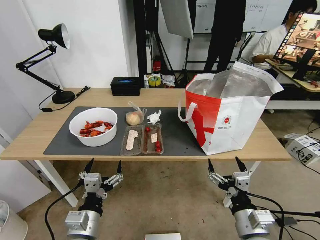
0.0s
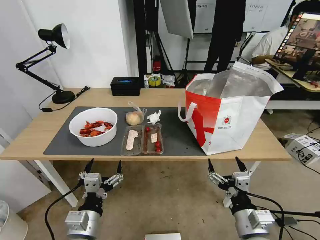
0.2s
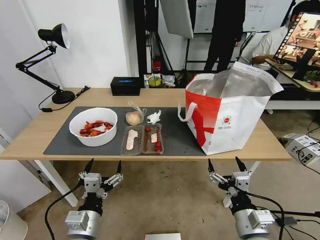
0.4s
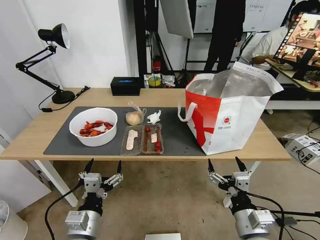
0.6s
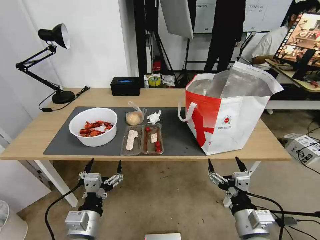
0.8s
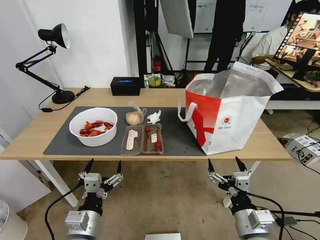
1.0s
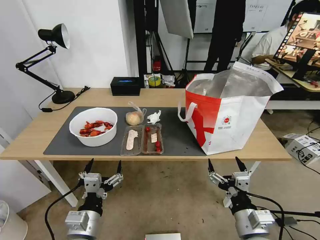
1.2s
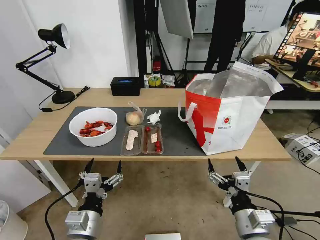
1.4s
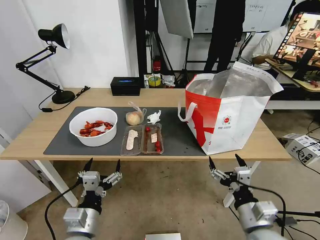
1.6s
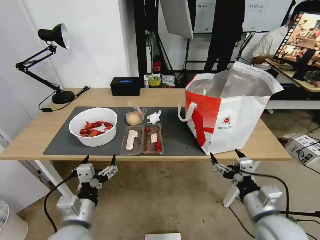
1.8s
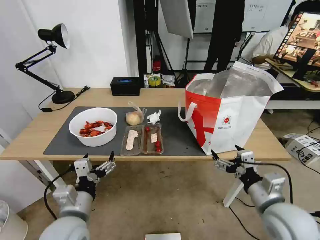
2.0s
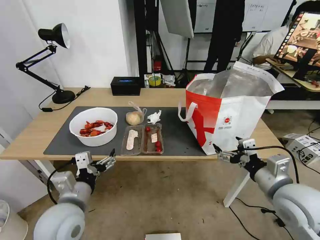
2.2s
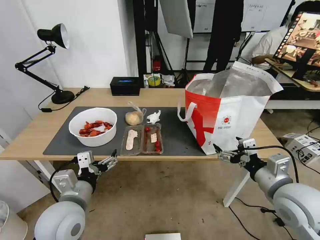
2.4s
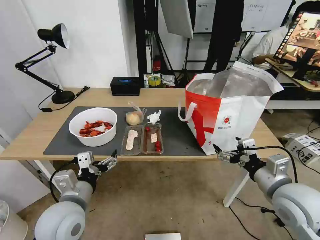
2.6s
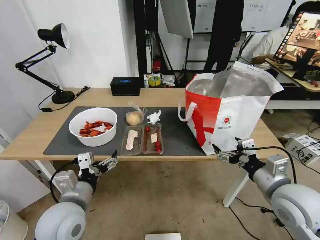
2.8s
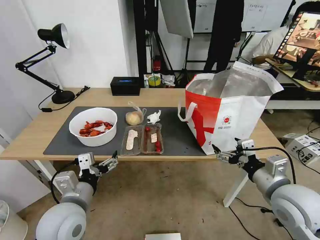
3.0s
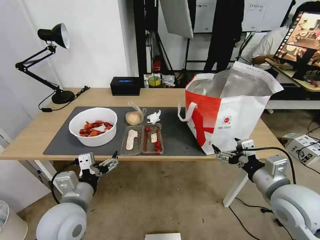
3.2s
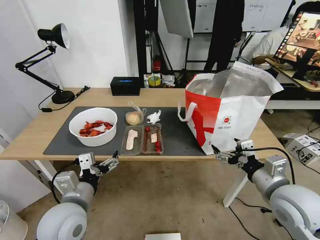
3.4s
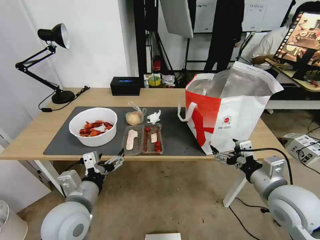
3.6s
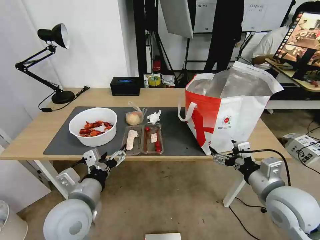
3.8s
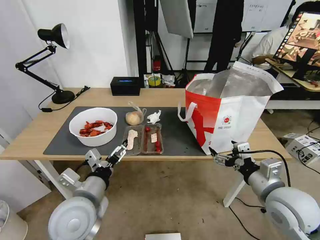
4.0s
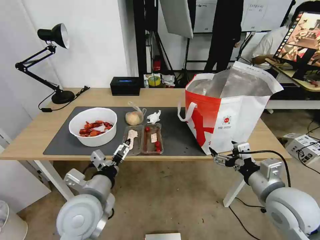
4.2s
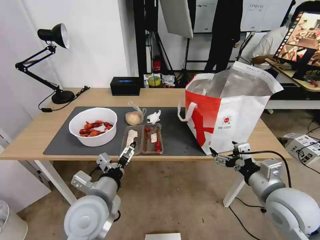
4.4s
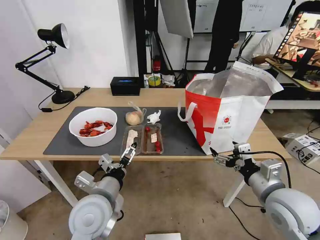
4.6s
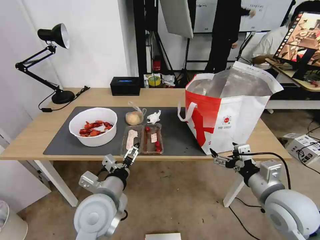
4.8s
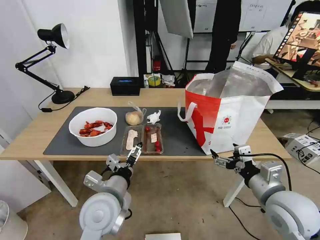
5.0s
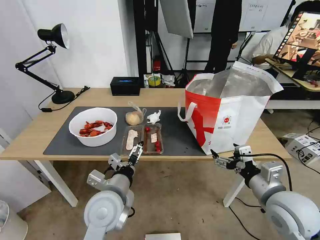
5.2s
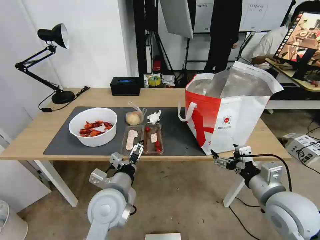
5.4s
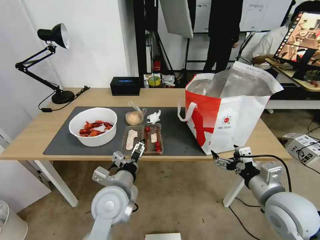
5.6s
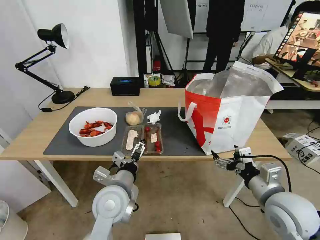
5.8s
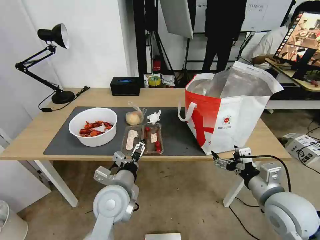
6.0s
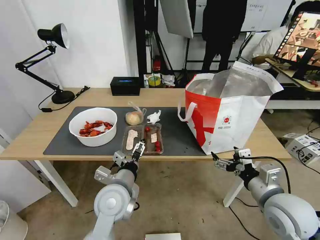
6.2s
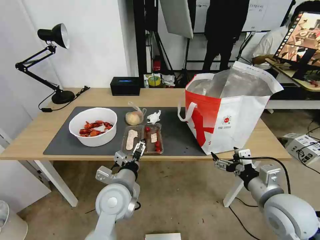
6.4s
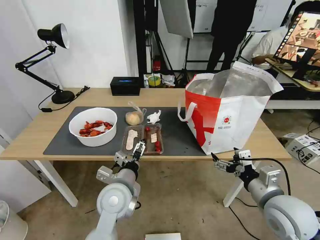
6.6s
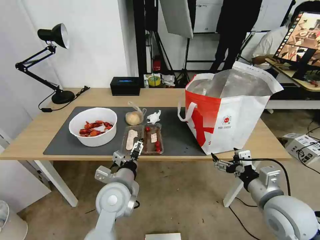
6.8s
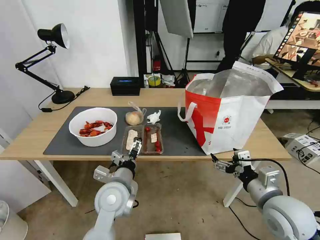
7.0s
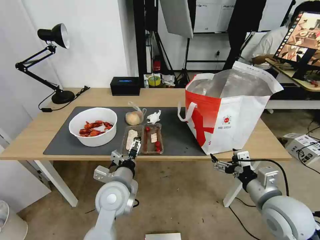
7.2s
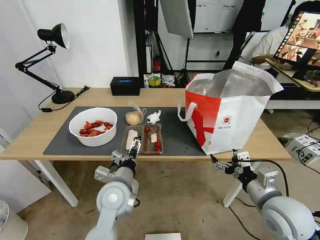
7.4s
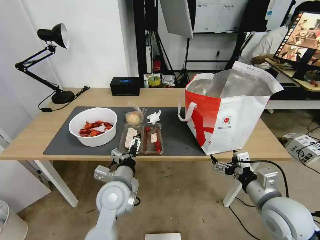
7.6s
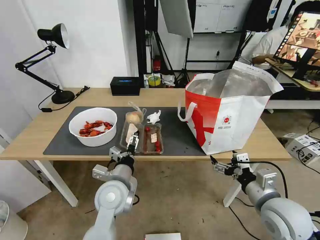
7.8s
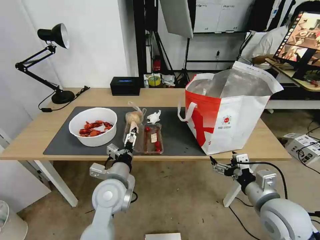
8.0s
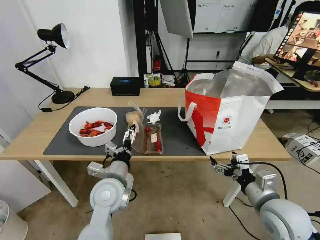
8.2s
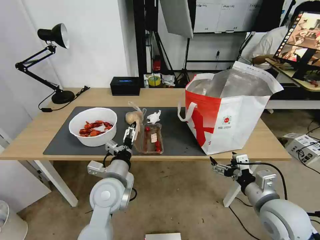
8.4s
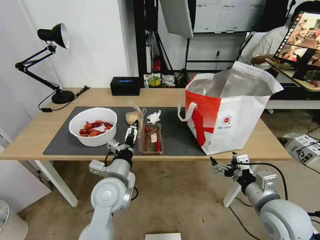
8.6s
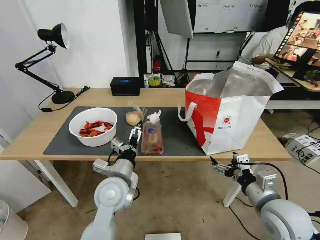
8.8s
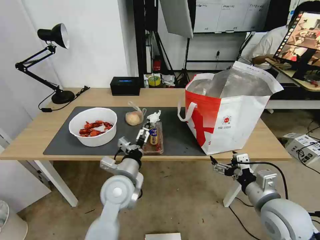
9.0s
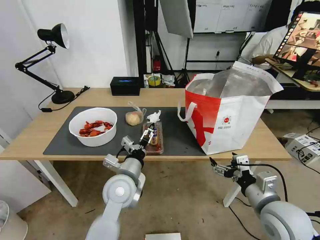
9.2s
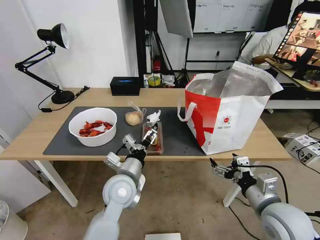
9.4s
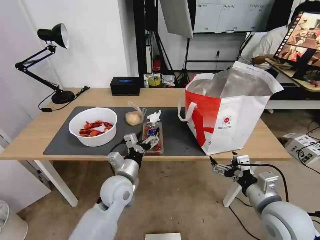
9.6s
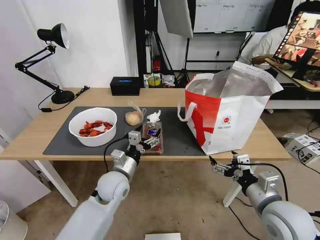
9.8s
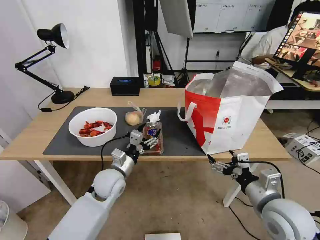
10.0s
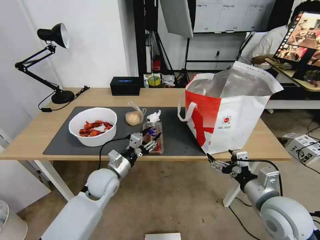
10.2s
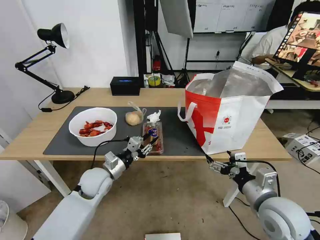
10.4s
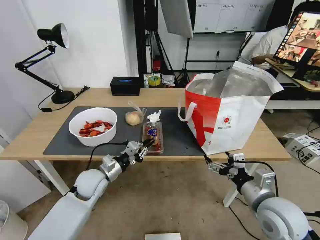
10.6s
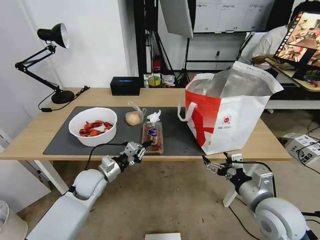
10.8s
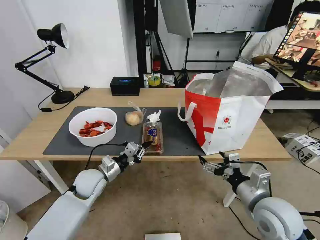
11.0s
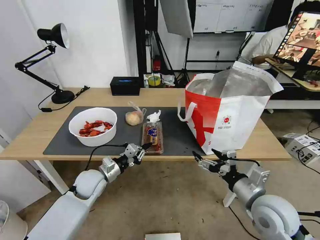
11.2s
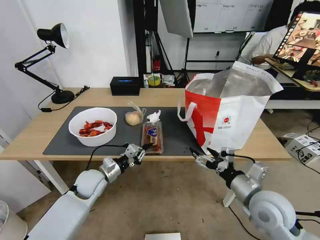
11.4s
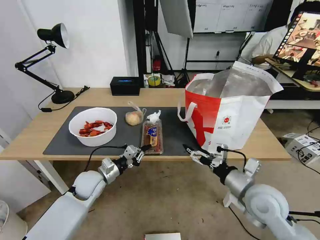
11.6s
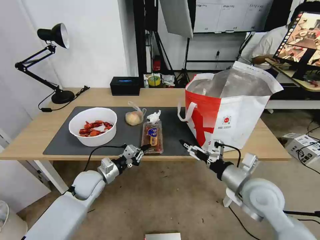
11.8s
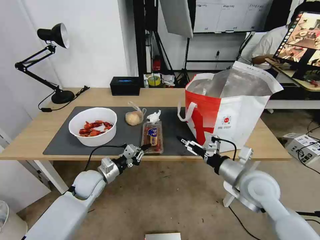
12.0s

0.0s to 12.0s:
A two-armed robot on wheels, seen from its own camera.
Task of the whole recording: Pick up the trash from the table and place it into the takeout bag.
1.6s to 3.0s: The right gripper shifts roughly 10 cm upward, forward and to the right; the left gripper is displaced upward and forward by roughly 10 cm.
3.0s to 4.4s: The left gripper moves to the right, some 5 cm.
4.4s to 6.0s: The left gripper ends up roughly 5 cm from where it was.
6.0s to 9.0s: There are only small adjustments of the grippers.
9.0s to 10.4s: The left gripper travels to the left, forward and downward by roughly 15 cm, and closes its fingers.
10.4s to 12.0s: The right gripper shifts some 10 cm forward.

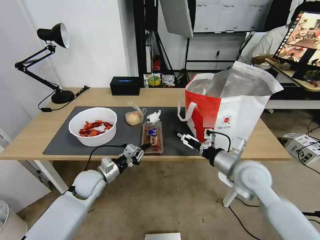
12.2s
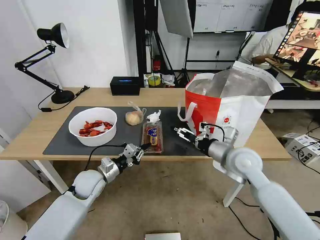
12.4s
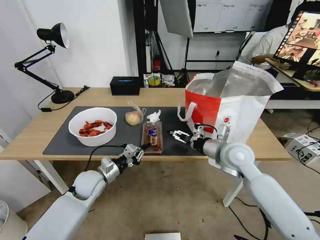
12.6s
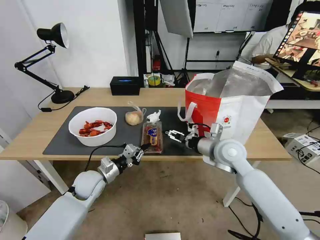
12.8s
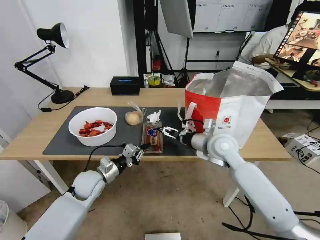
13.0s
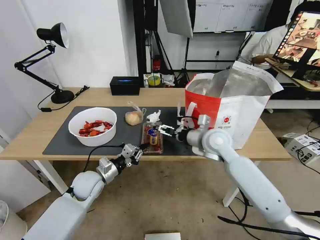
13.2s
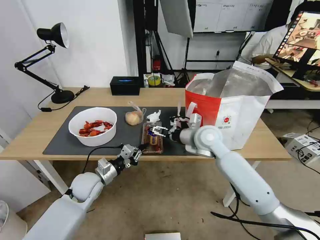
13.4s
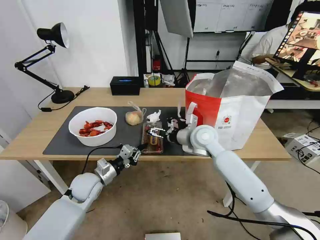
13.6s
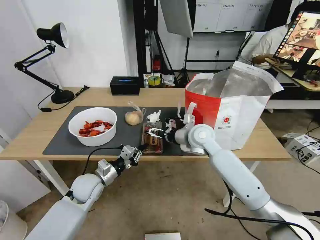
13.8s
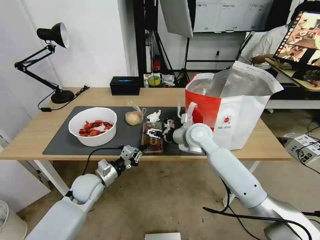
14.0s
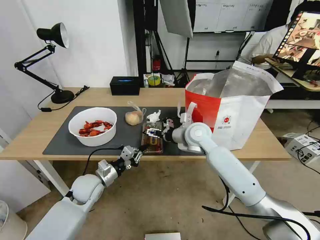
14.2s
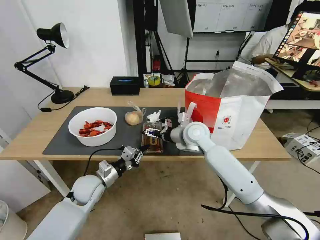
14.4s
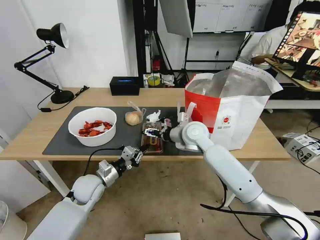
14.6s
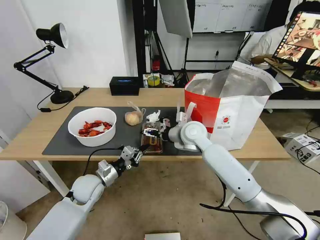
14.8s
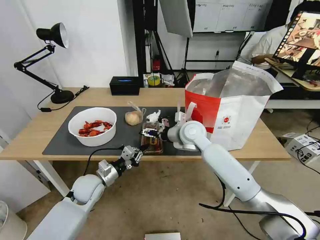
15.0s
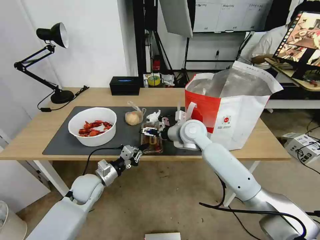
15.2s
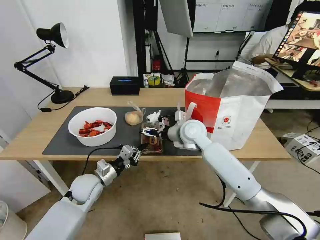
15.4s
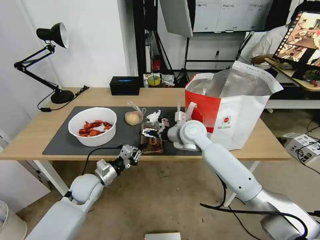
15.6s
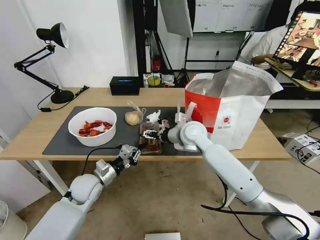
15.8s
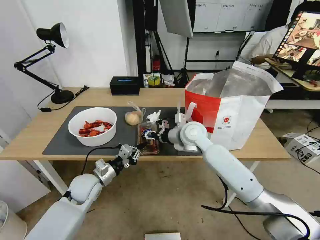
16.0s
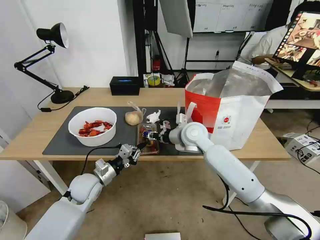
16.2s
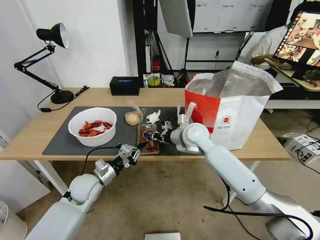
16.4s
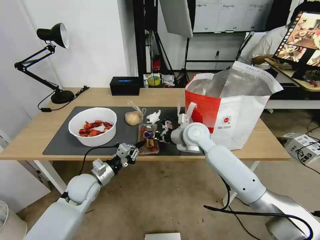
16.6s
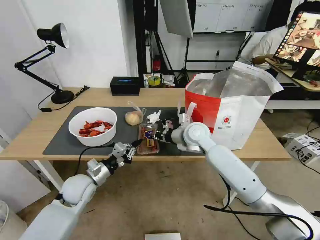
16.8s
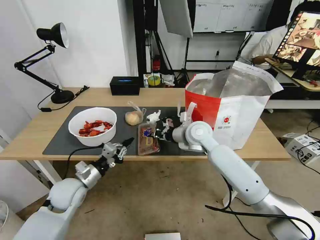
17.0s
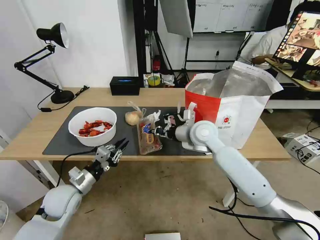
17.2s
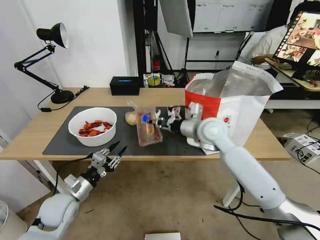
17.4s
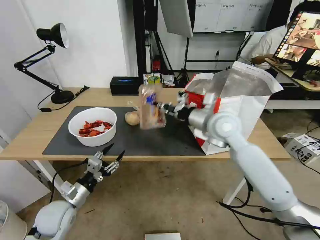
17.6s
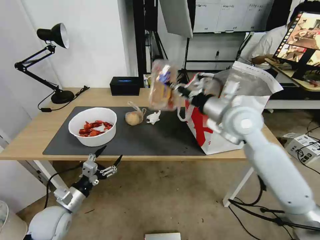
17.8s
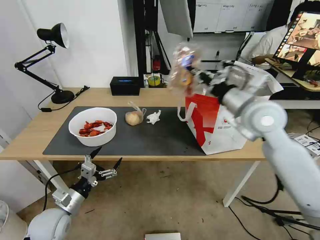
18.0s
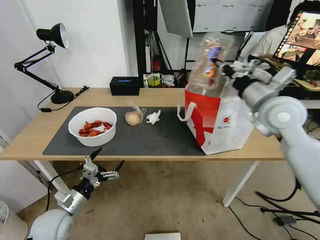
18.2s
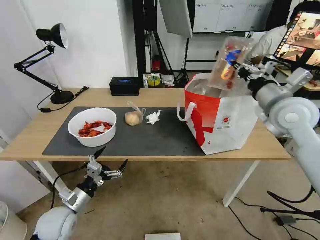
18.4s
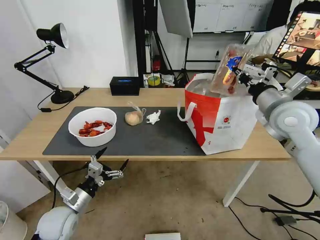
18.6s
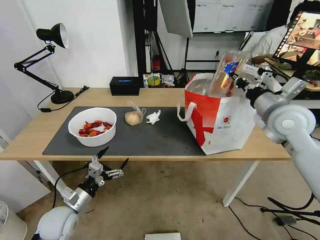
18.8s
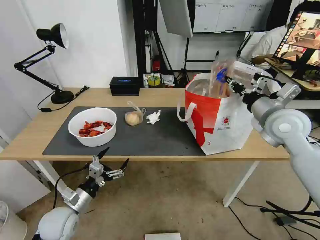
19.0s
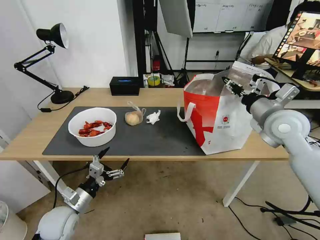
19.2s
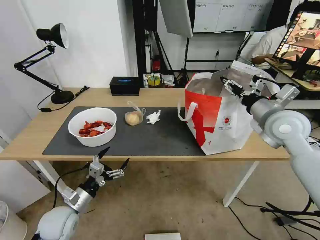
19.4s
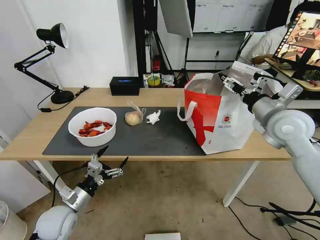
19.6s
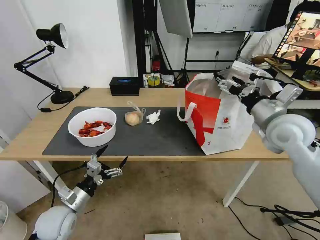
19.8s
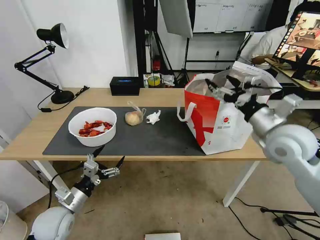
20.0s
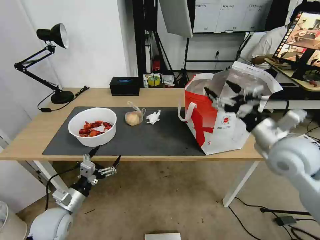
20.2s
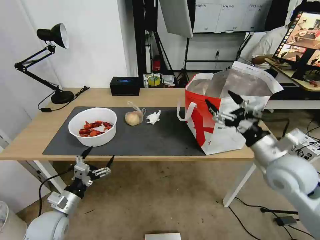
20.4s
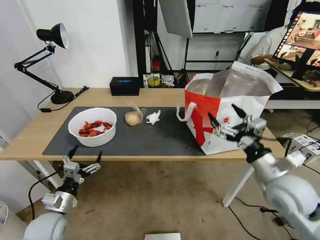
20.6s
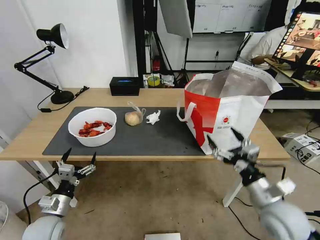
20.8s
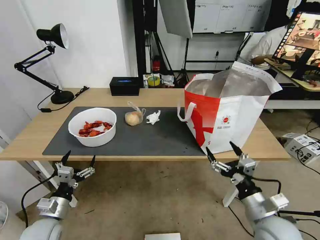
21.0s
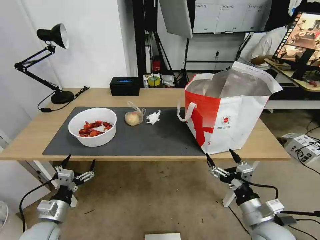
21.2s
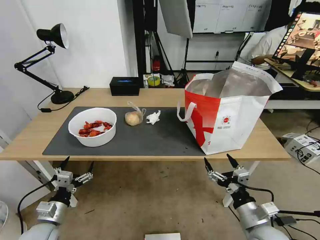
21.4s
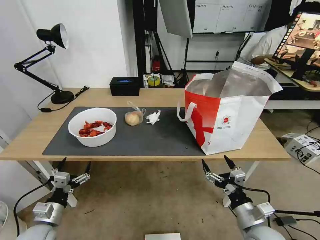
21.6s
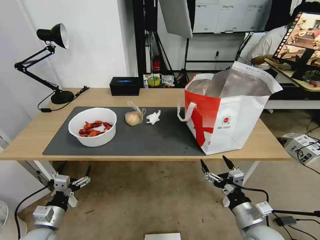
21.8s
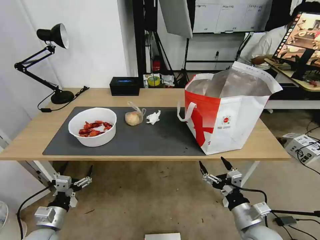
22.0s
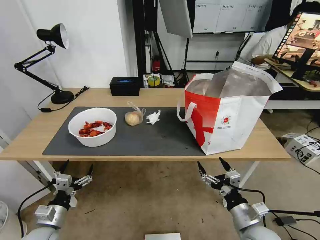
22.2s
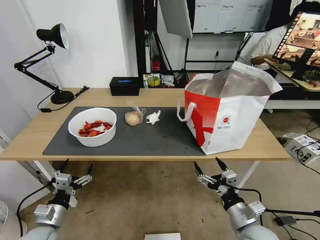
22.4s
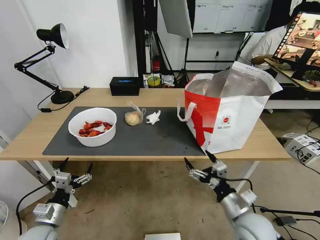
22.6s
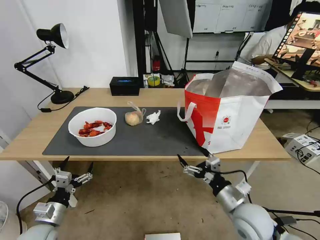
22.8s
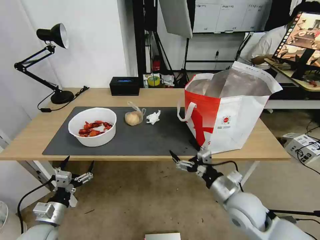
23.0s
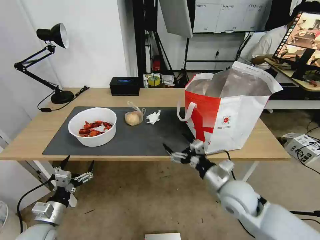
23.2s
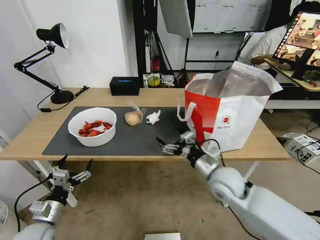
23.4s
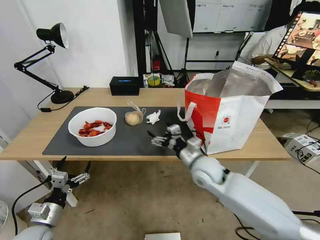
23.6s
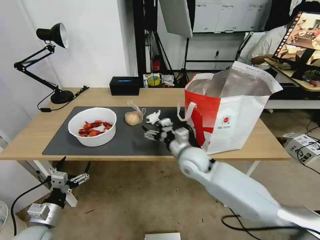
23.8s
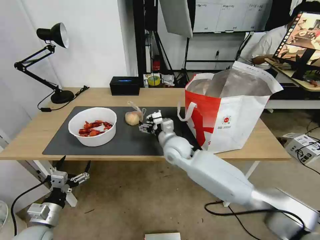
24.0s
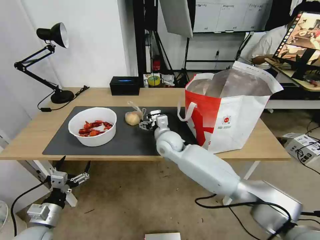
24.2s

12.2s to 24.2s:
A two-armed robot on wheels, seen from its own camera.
Task of the whole recording: Pick up the trash from the table and place it into the takeout bag.
12.2s to 13.8s: The right gripper is displaced forward and to the left by approximately 20 cm.
13.8s to 15.2s: The grippers stay close to where they were, moving slightly.
15.2s to 16.6s: The right gripper closes its fingers.
16.6s to 18.2s: The left gripper travels backward and to the left by about 10 cm, and opens its fingers; the right gripper heads to the right and upward, covering some 25 cm.
18.2s to 19.8s: The right gripper moves some 5 cm, and opens up.
19.8s to 21.2s: The right gripper goes about 30 cm downward and backward. Meanwhile the left gripper moves approximately 5 cm.
21.2s to 22.6s: There are only small adjustments of the grippers.
22.6s to 24.2s: The right gripper shifts some 35 cm forward and to the left.
